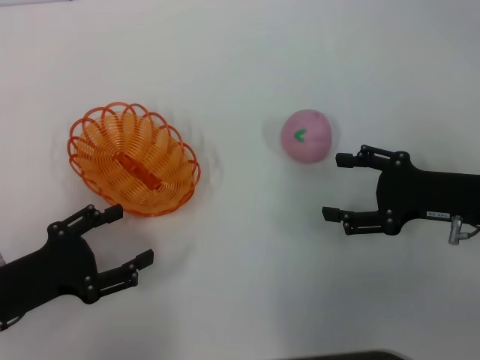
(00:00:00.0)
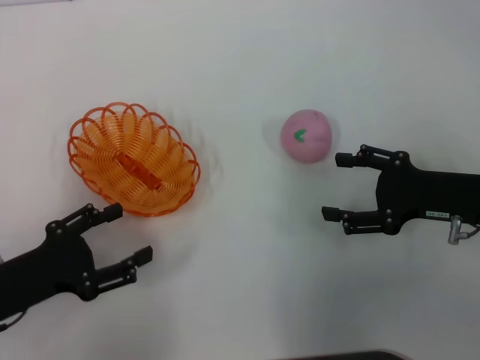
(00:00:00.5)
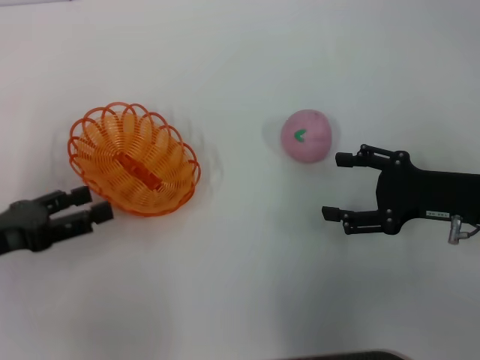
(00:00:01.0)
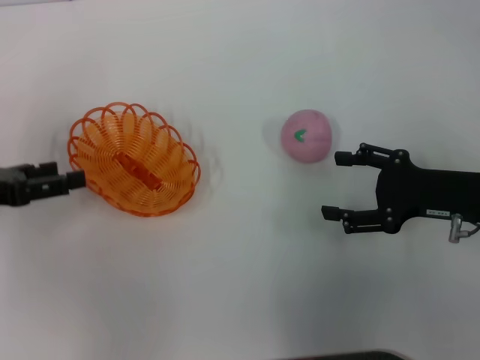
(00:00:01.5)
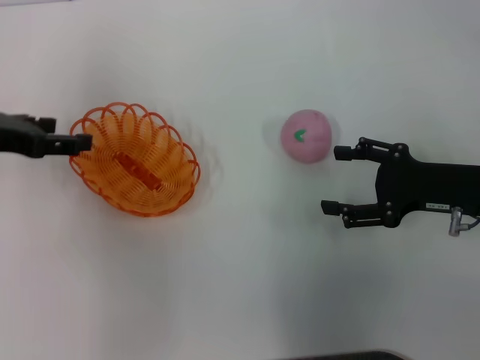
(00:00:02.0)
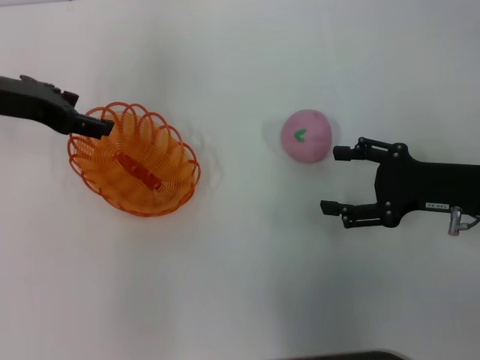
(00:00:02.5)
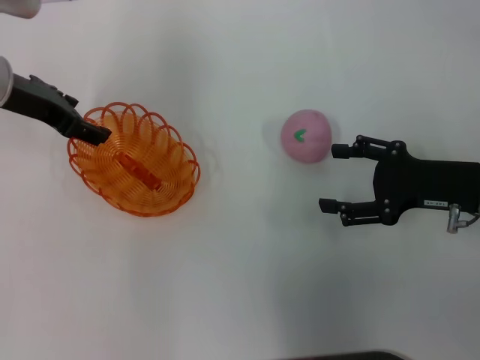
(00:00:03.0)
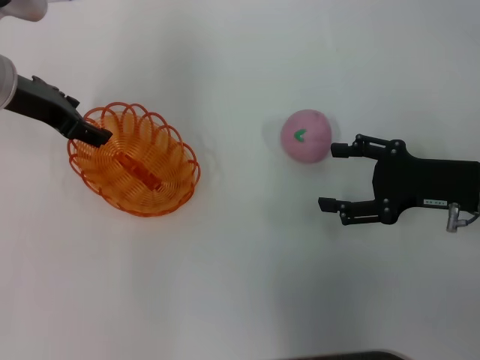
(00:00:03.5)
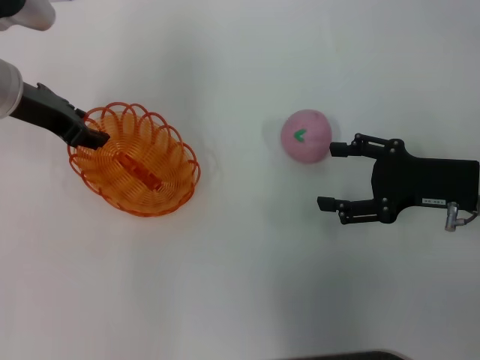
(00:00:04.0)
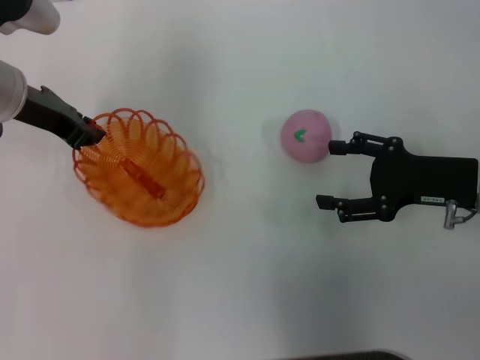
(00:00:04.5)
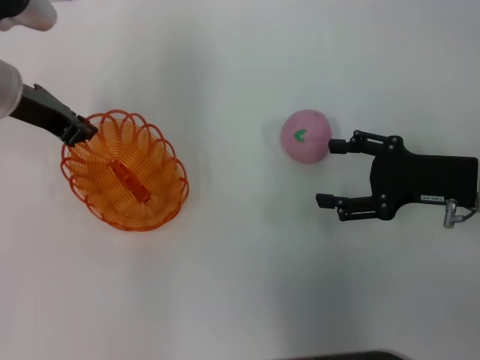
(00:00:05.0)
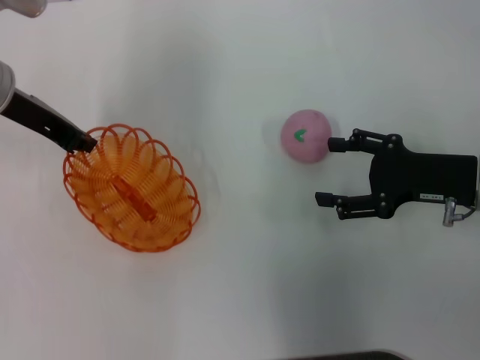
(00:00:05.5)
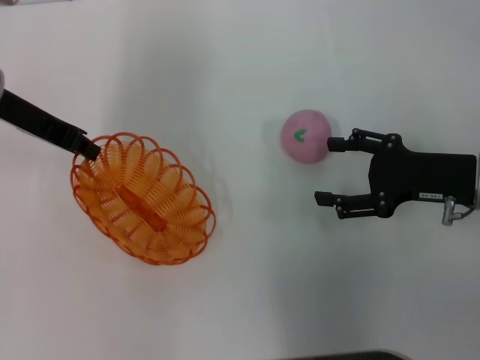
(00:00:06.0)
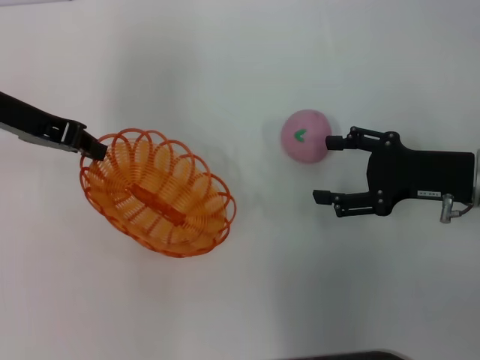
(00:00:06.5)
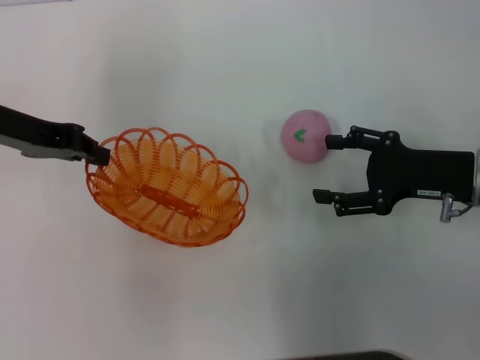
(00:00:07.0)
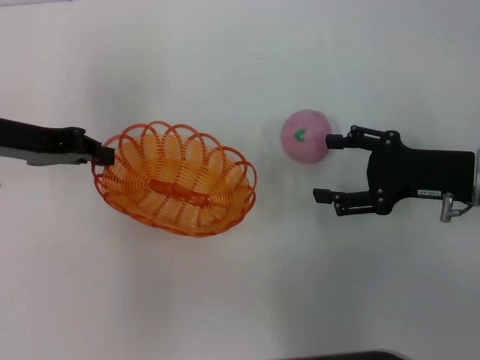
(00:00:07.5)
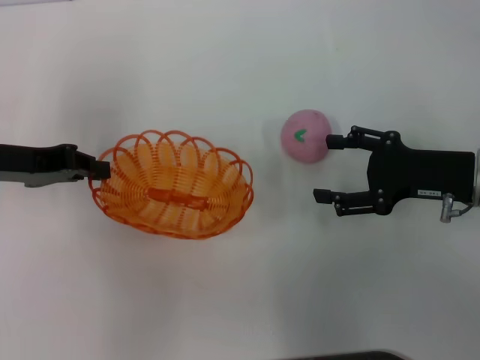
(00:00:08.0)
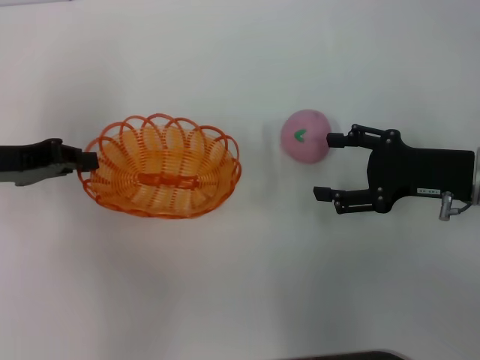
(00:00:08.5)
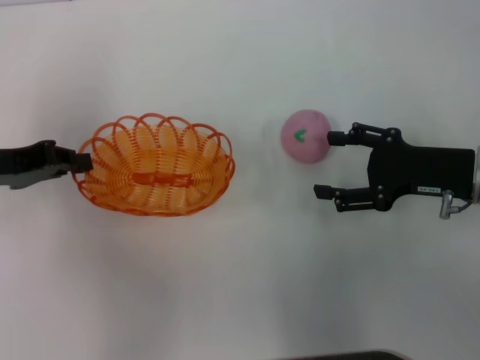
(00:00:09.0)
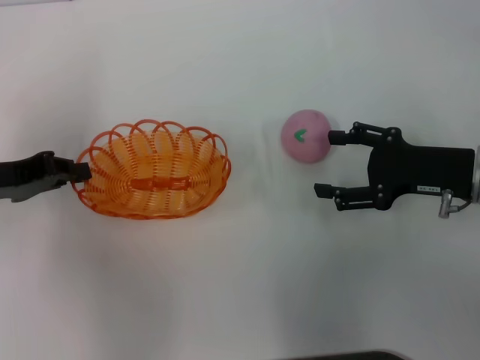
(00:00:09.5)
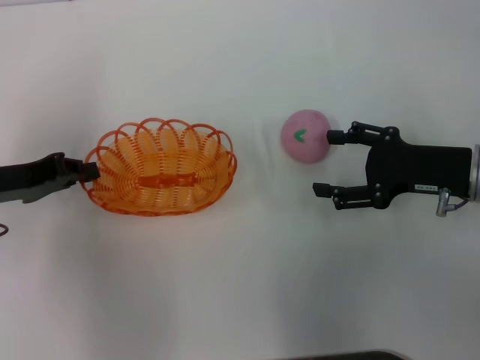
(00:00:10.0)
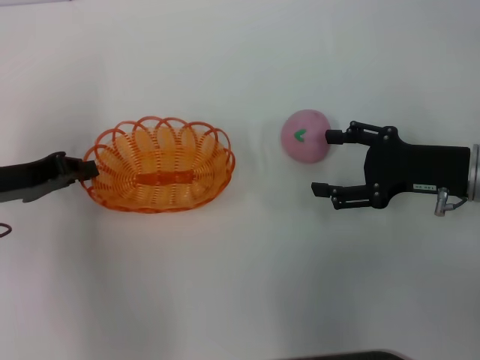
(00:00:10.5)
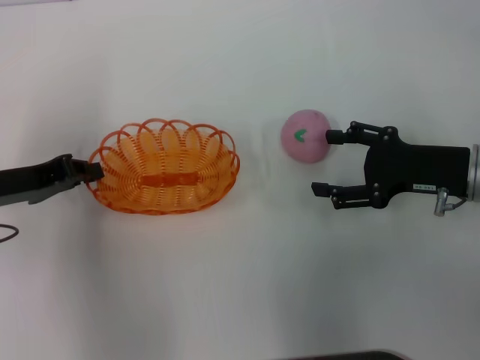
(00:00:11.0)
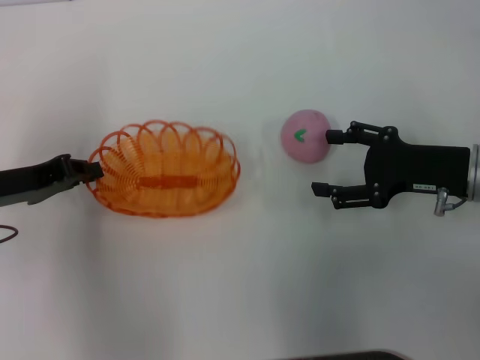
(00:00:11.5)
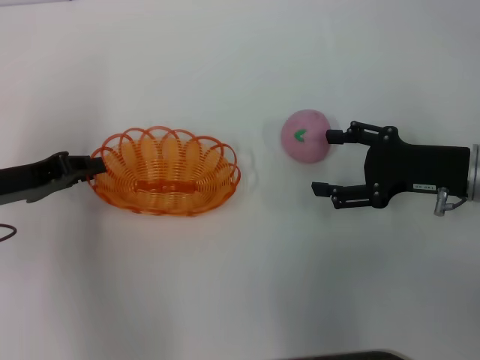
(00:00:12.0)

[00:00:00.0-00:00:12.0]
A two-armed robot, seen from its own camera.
Step, 00:00:00.0 to 00:00:06.5: Pick up the basket with the left gripper.
00:00:00.0 to 00:00:02.0: The left gripper shifts approximately 15 cm forward and upward.
00:00:02.0 to 00:00:04.0: The left gripper goes approximately 10 cm to the right and forward.
00:00:04.0 to 00:00:06.0: The left gripper closes.
00:00:06.0 to 00:00:08.0: The left gripper travels backward by approximately 5 cm.
00:00:08.0 to 00:00:10.0: The grippers move only a little.
00:00:10.0 to 00:00:12.0: The two grippers keep their place.

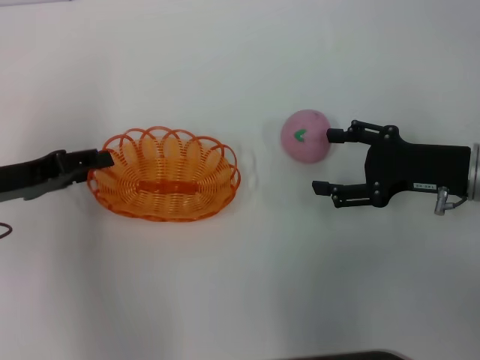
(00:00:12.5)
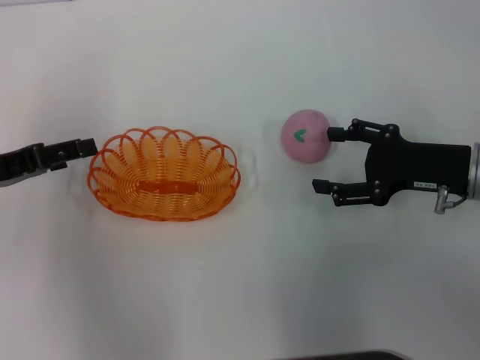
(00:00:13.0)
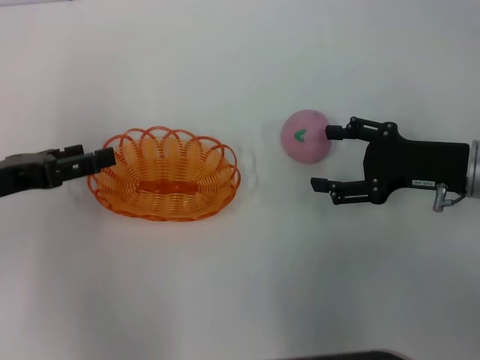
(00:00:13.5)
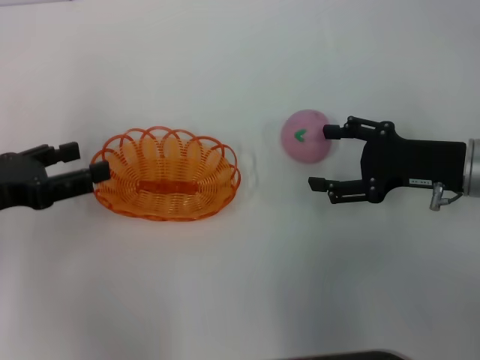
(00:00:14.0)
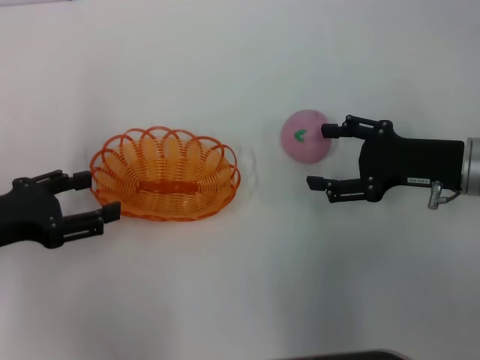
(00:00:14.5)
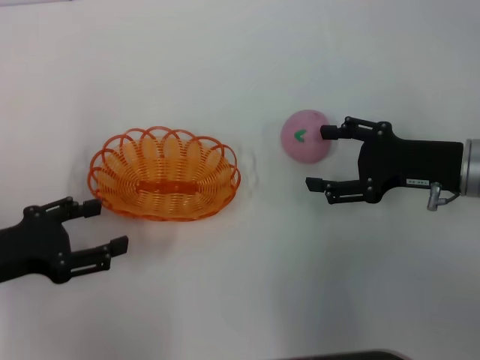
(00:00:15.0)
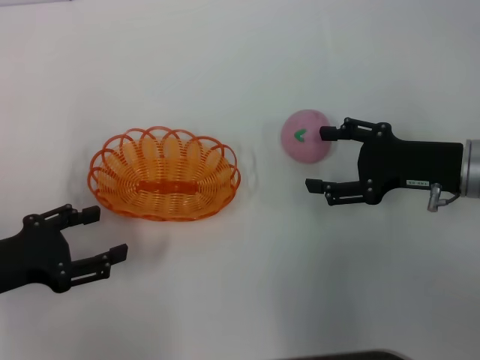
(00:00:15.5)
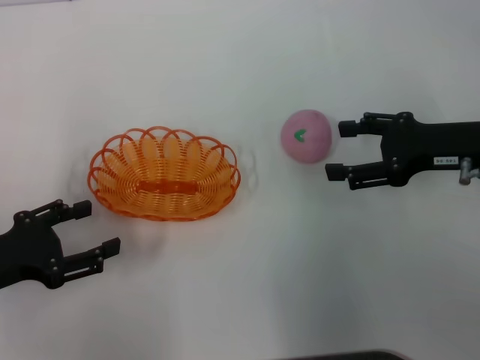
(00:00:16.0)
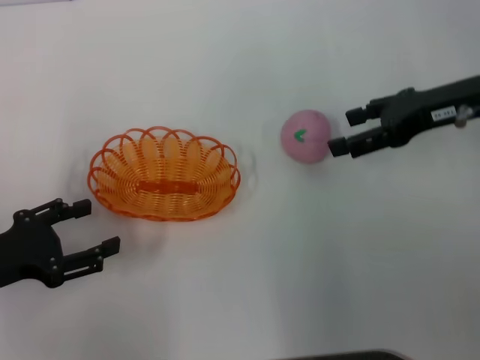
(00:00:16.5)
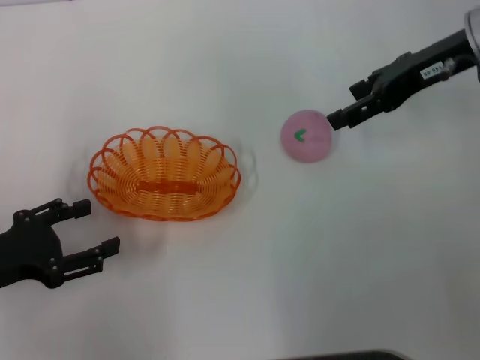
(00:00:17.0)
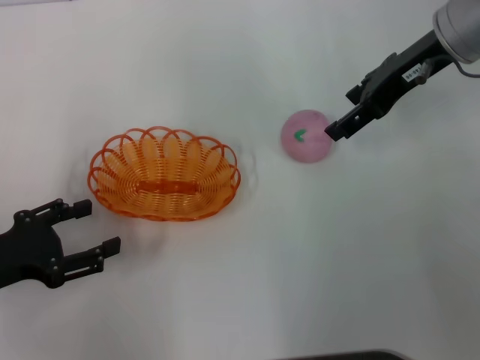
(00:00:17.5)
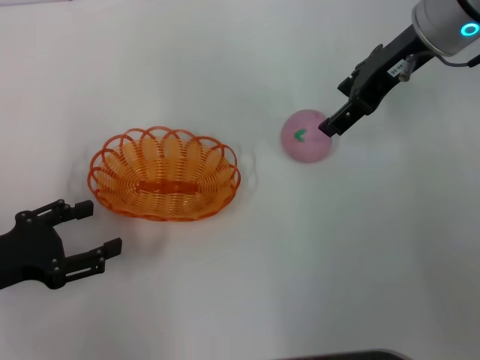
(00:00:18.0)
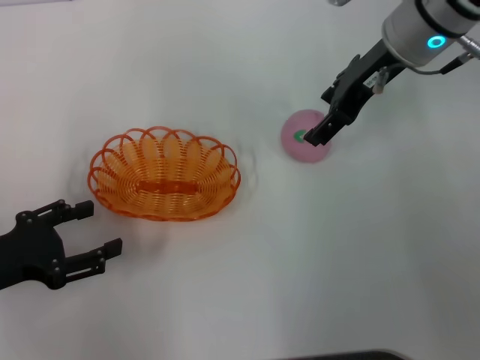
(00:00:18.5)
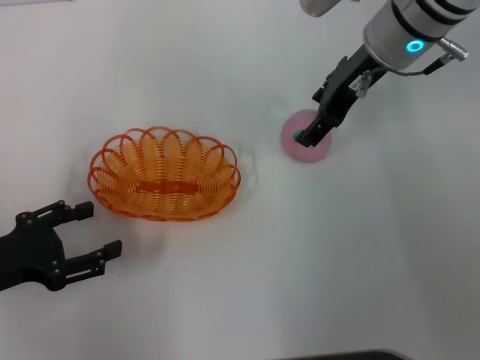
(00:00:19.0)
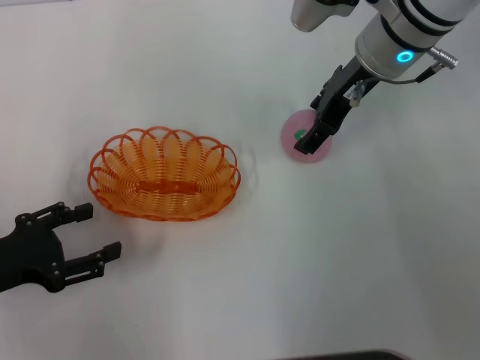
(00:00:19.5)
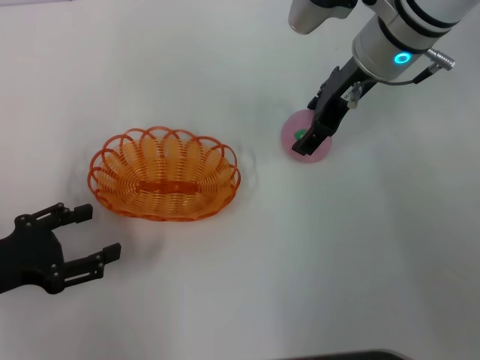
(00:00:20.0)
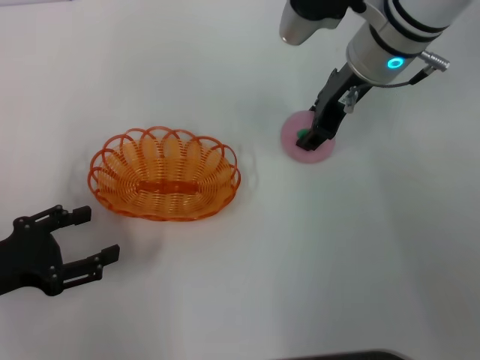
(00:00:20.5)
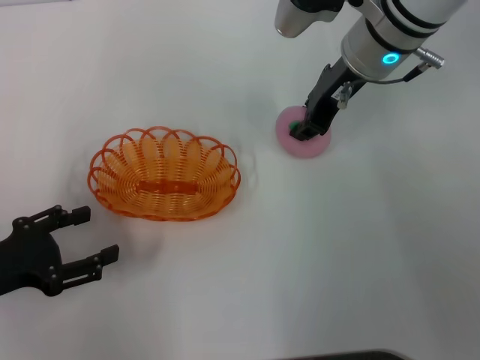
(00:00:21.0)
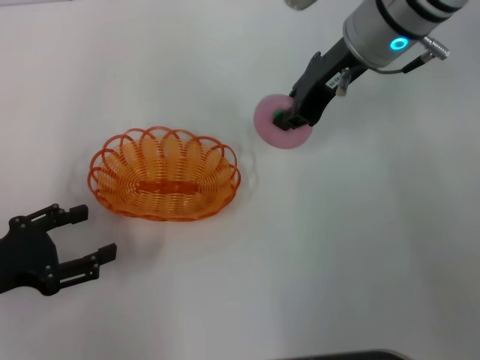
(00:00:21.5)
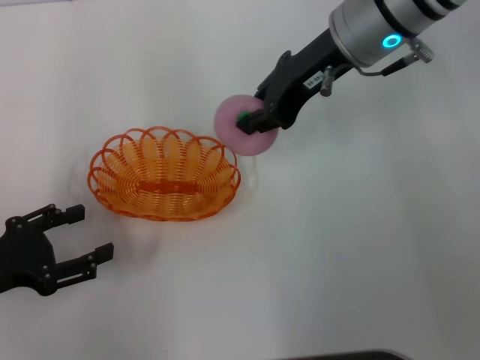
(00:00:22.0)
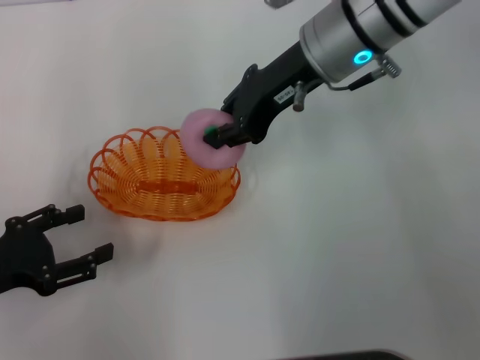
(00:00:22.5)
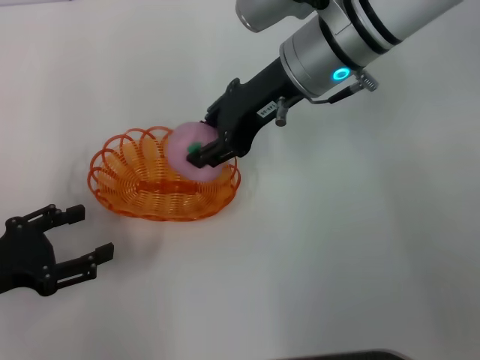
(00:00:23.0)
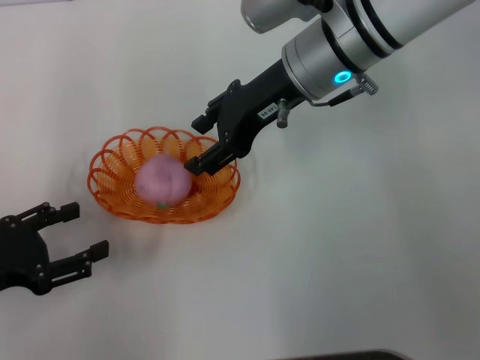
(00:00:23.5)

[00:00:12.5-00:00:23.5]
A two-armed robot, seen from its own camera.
Step, 00:00:12.5 to 00:00:15.0: Place the basket in the center of view with the left gripper.
Step, 00:00:15.5 to 00:00:21.5: Pick up the peach with the right gripper.
00:00:12.5 to 00:00:14.5: The left gripper opens up.
00:00:14.5 to 00:00:16.0: The grippers stay close to where they were, moving slightly.
00:00:16.0 to 00:00:18.0: The right gripper heads forward, upward and to the left, covering roughly 15 cm.
00:00:18.0 to 00:00:20.0: The right gripper changes place by about 5 cm.
00:00:20.0 to 00:00:21.5: The right gripper closes its fingers.
00:00:21.5 to 00:00:23.5: The right gripper ends up some 5 cm from where it was, and opens up.

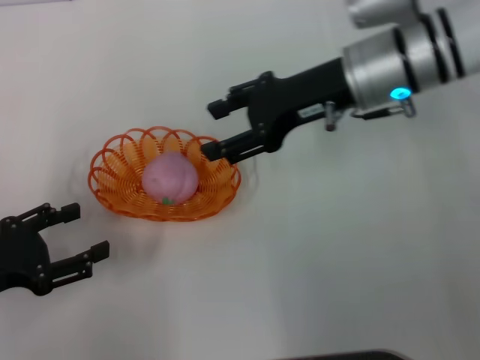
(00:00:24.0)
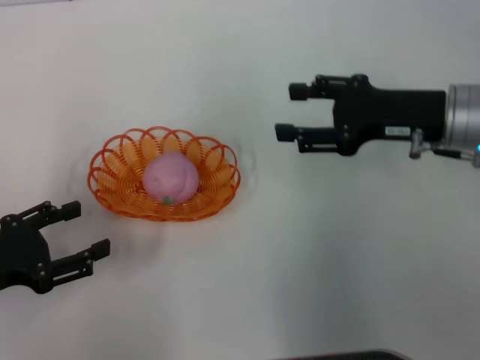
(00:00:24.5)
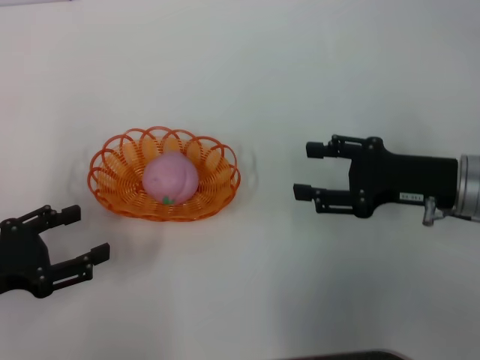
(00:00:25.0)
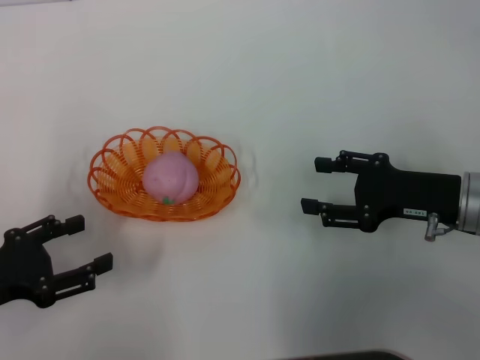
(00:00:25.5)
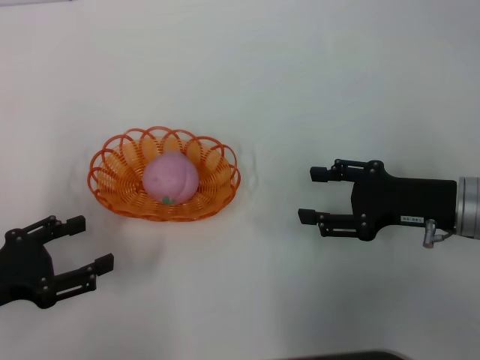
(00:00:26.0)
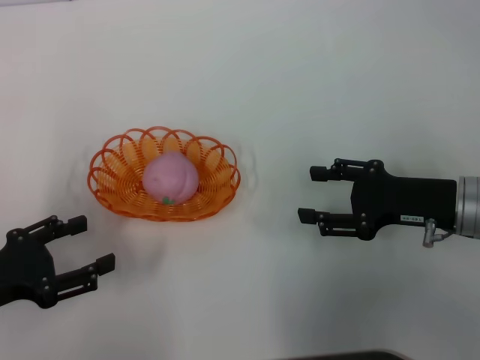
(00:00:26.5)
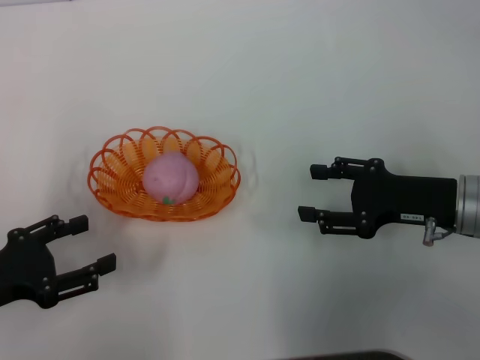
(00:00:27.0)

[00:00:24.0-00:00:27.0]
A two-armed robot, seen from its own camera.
00:00:24.0 to 00:00:25.5: The right gripper is displaced to the right, backward and downward by roughly 20 cm.
00:00:25.5 to 00:00:27.0: Neither gripper changes place.
